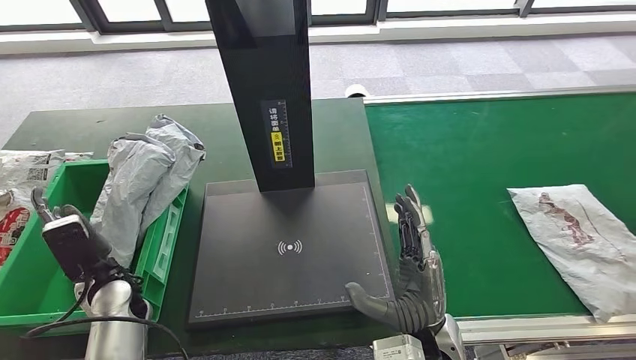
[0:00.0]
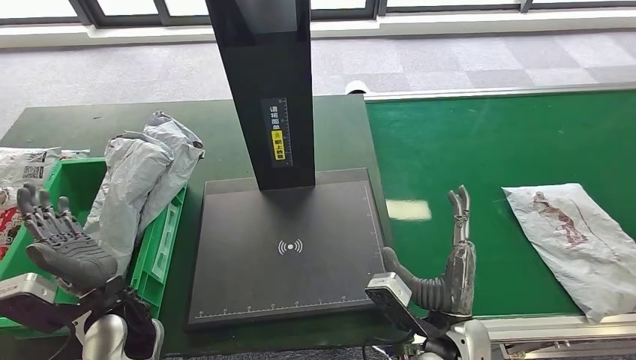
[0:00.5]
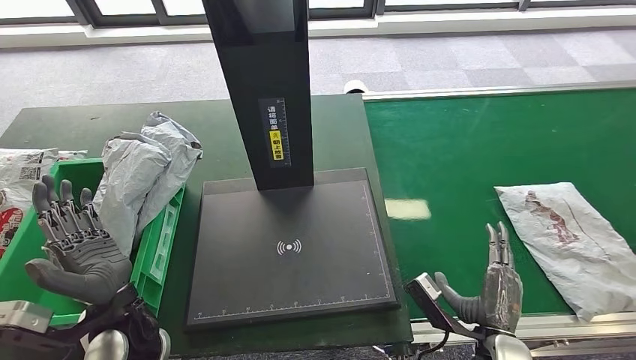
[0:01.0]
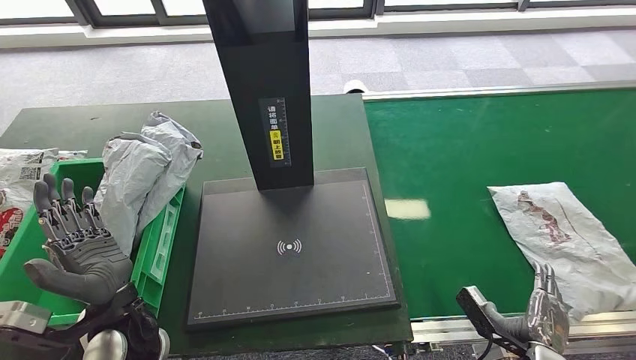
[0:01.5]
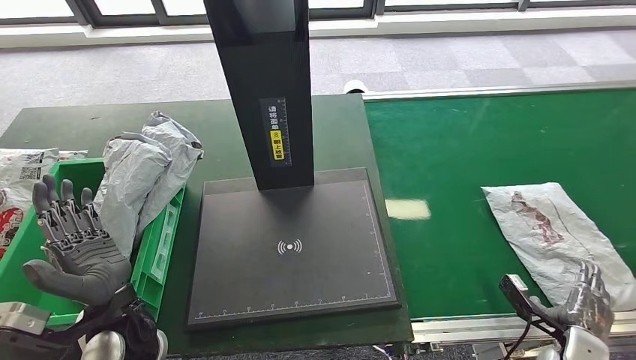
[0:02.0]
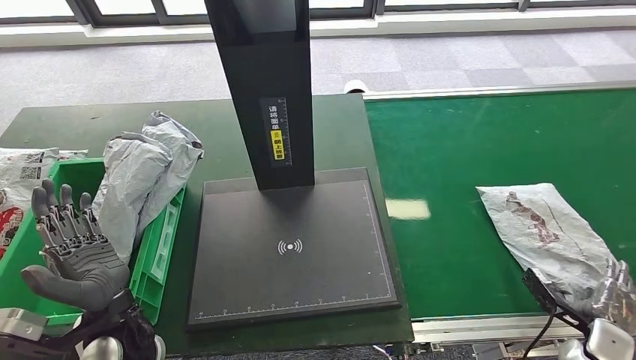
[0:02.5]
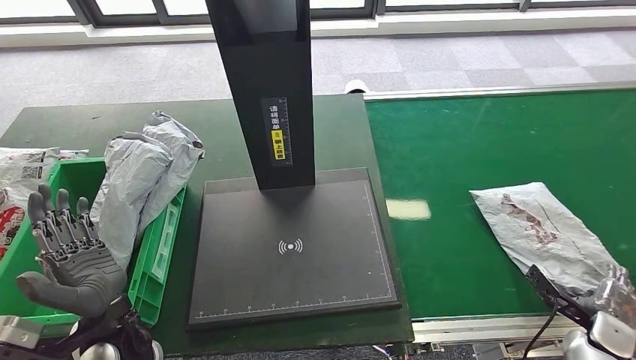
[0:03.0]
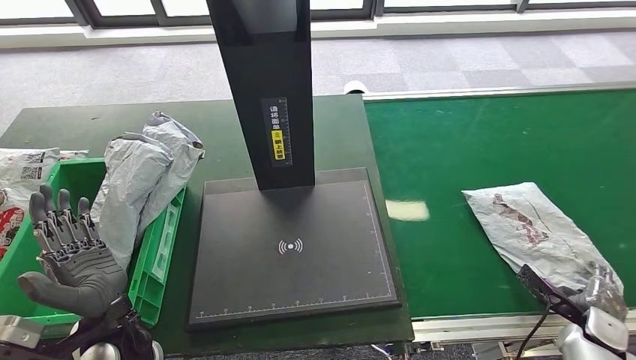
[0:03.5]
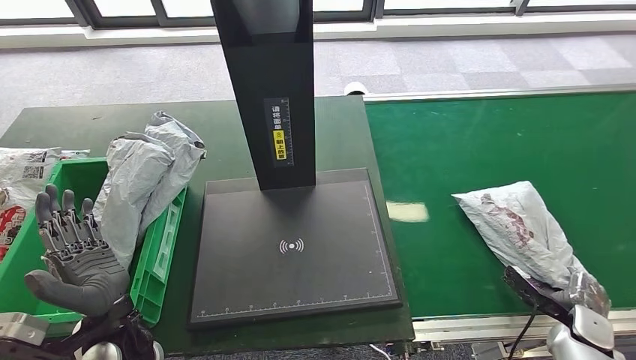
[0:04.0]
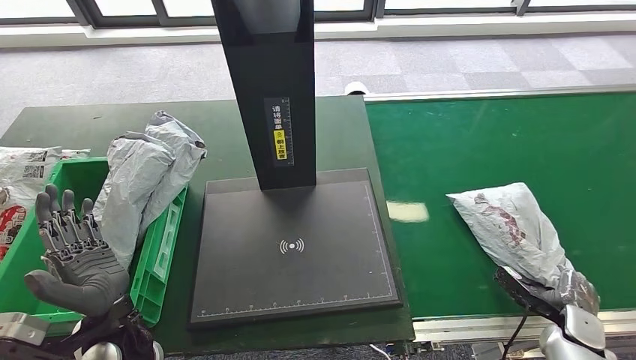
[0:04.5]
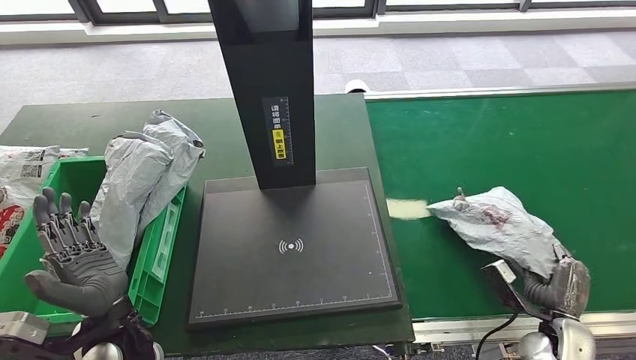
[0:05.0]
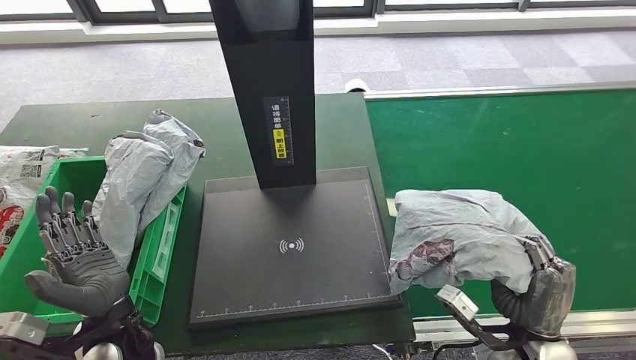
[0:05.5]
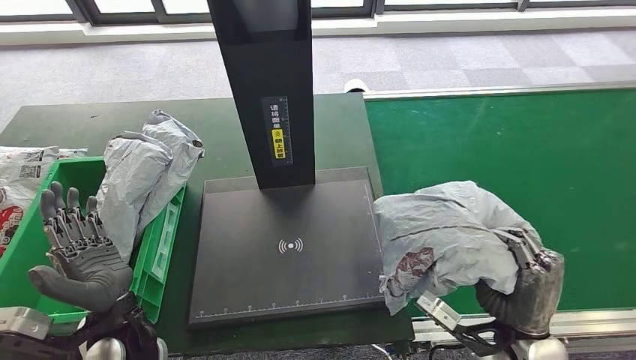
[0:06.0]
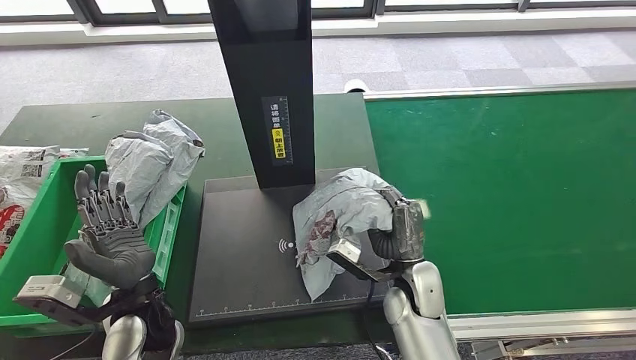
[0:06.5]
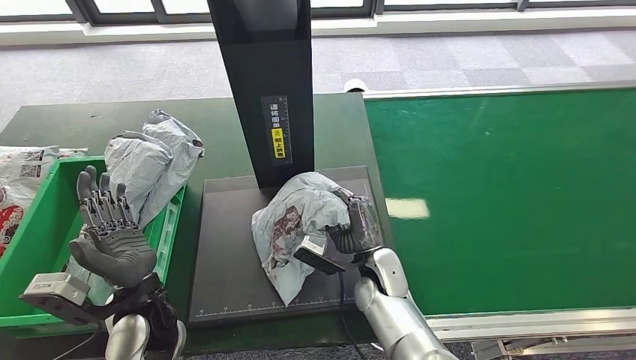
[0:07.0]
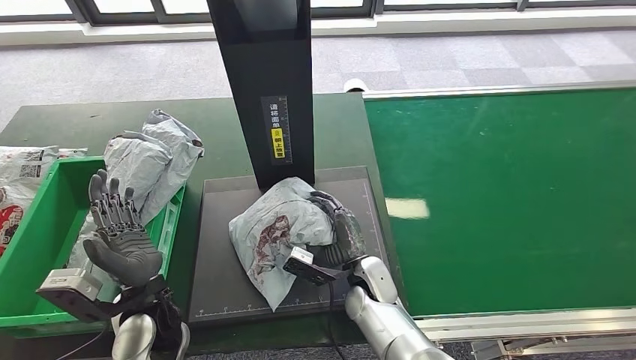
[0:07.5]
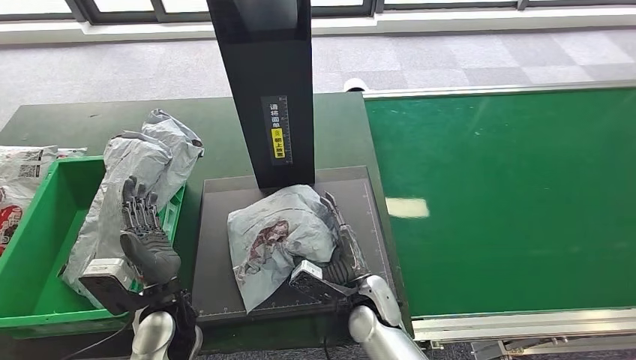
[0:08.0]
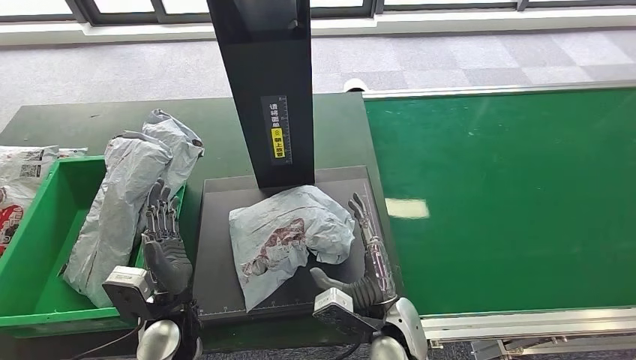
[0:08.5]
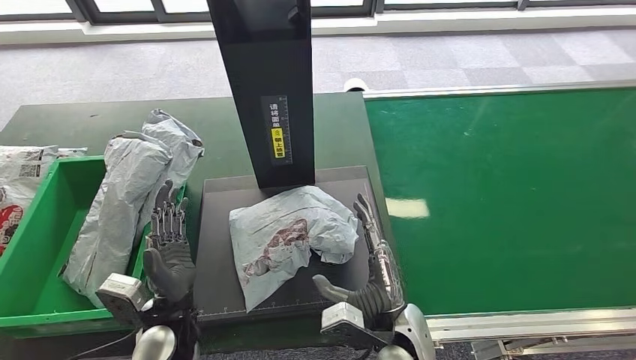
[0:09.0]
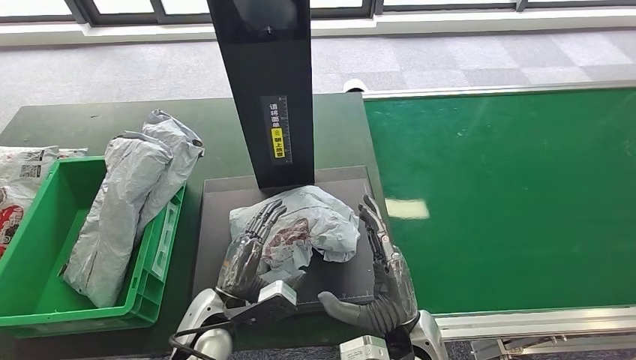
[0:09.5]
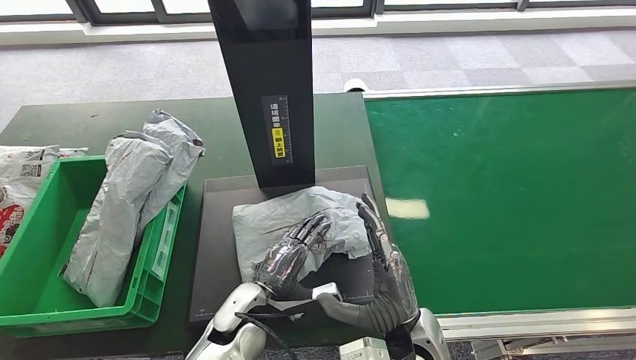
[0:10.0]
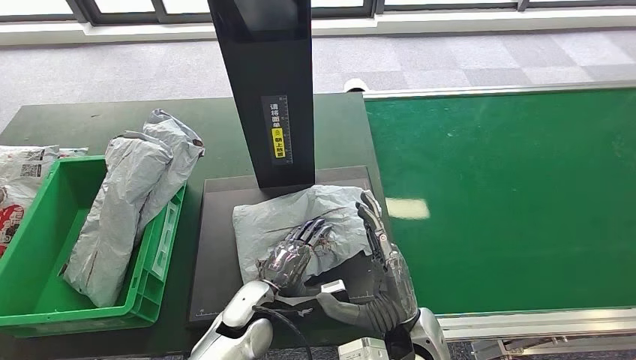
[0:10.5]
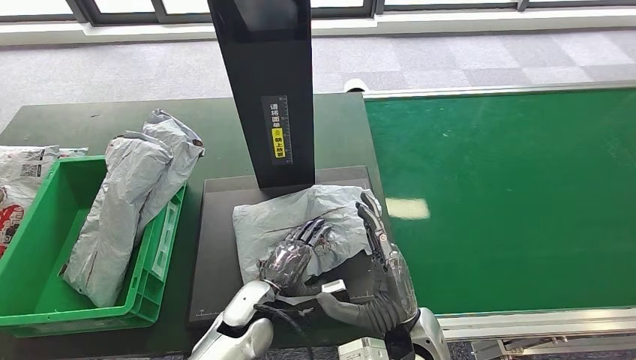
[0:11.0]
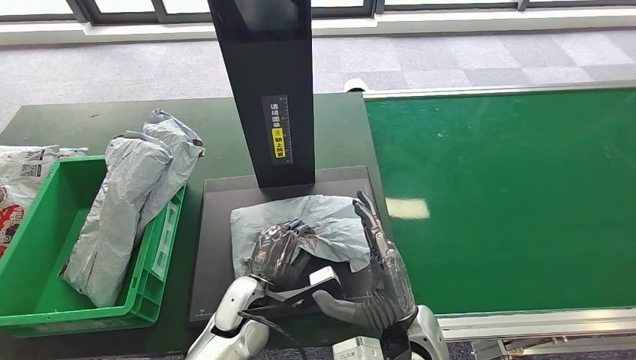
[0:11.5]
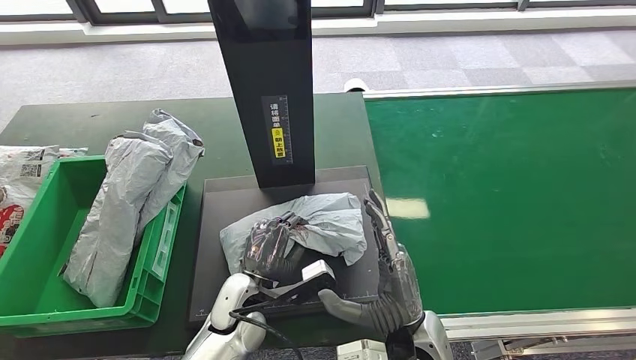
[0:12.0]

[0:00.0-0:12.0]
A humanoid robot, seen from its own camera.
Step, 0:04.0 to 0:06.0: Pick up the parcel from the conveyor belt.
Step, 0:06.5 to 0:09.5: Place the parcel onto the inbound machine.
0:08.0 to 0:10.0: The left hand shifts about 10 cm to the right; the right hand heads upward, backward and to the right, covering approximately 10 cm.
0:10.0 to 0:12.0: The hands move only a little.

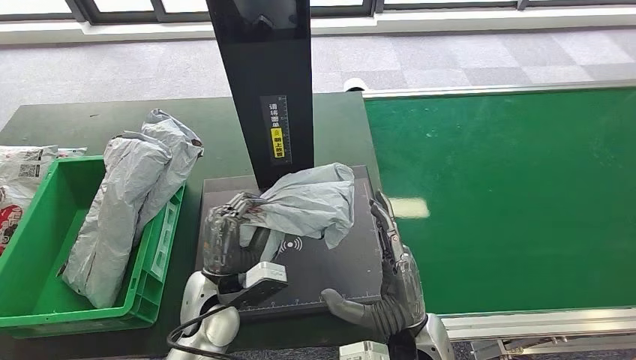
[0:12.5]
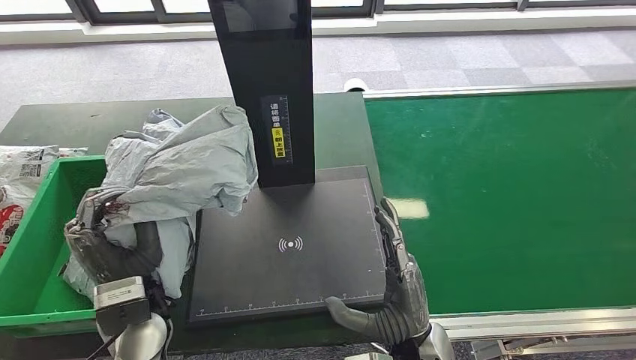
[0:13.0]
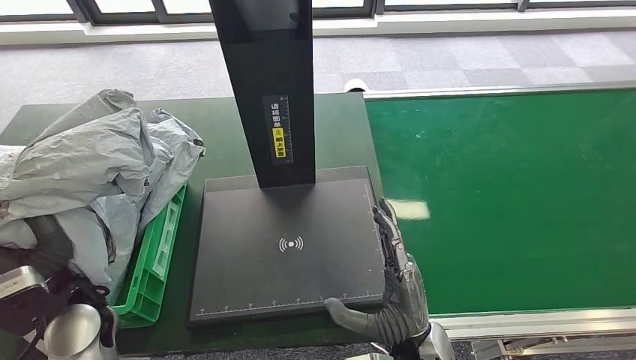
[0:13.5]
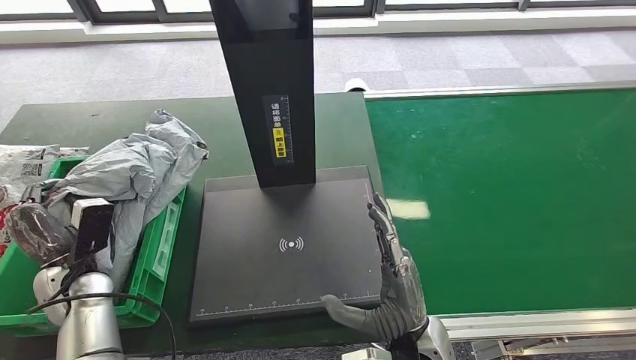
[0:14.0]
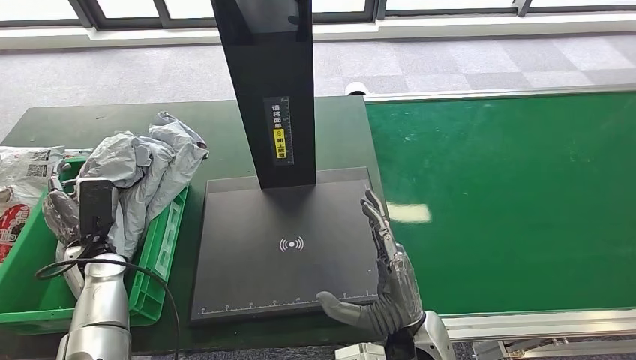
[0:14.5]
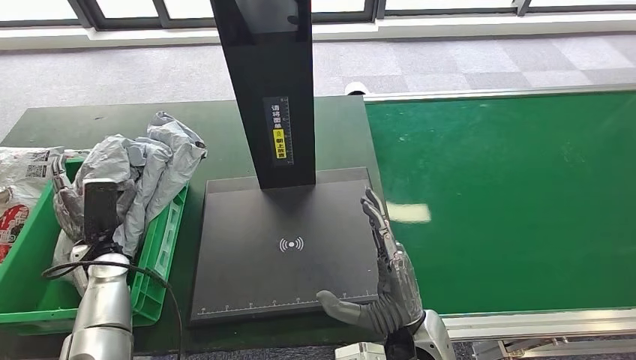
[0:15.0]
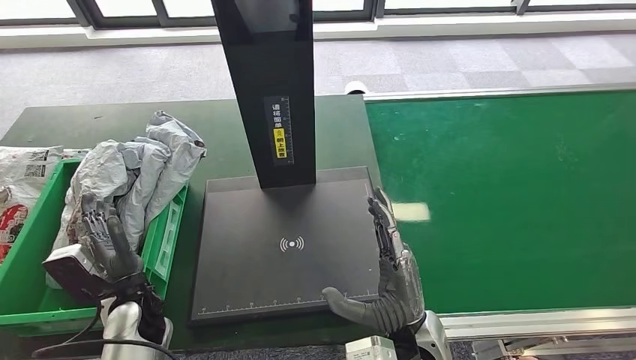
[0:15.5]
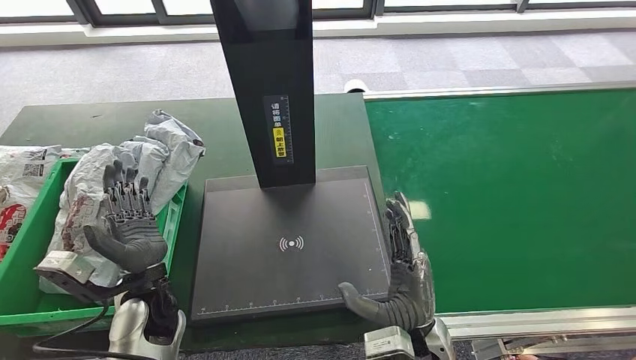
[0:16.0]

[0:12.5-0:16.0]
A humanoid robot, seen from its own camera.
Step, 0:13.5 to 0:16.0: Place the parcel into the delivery box.
